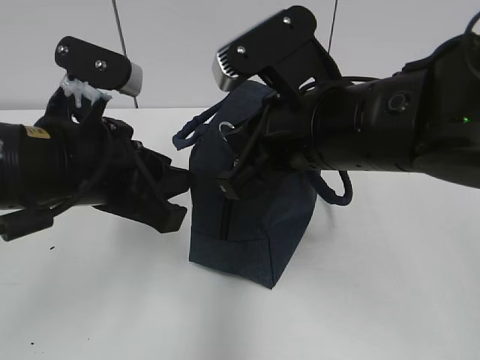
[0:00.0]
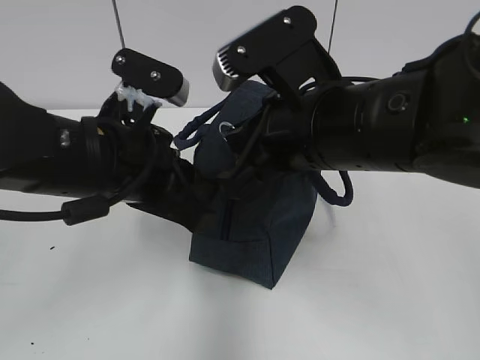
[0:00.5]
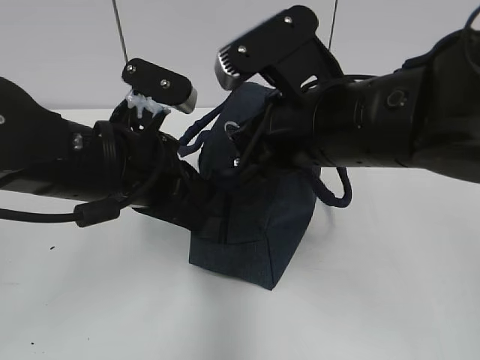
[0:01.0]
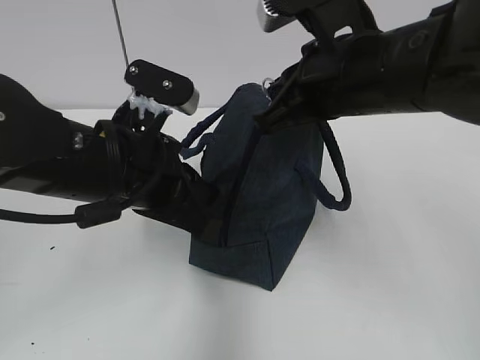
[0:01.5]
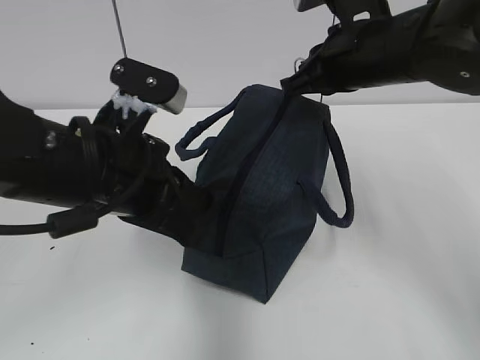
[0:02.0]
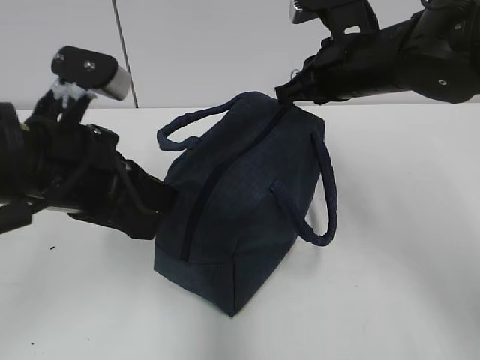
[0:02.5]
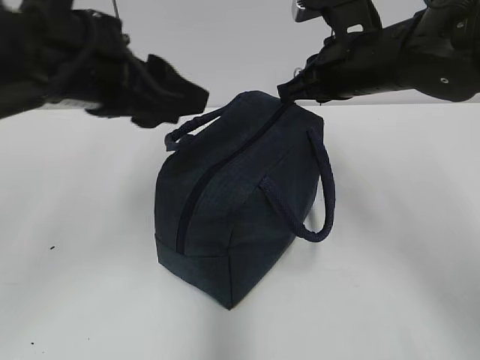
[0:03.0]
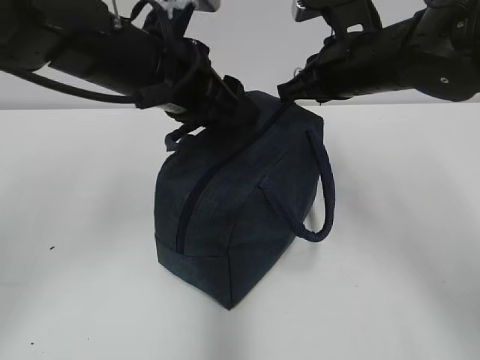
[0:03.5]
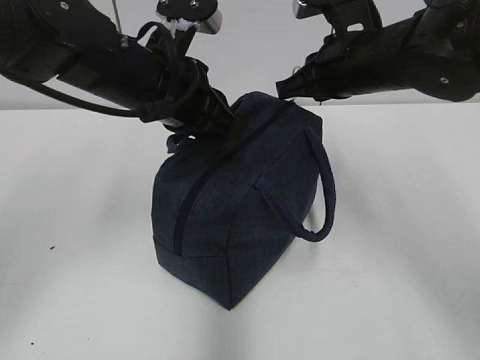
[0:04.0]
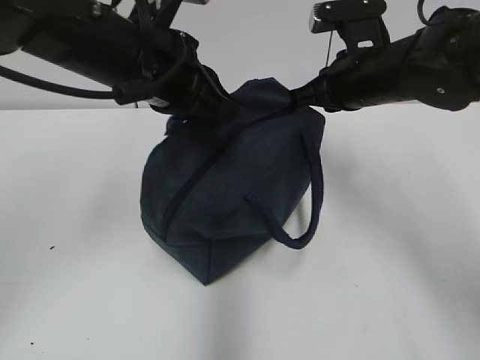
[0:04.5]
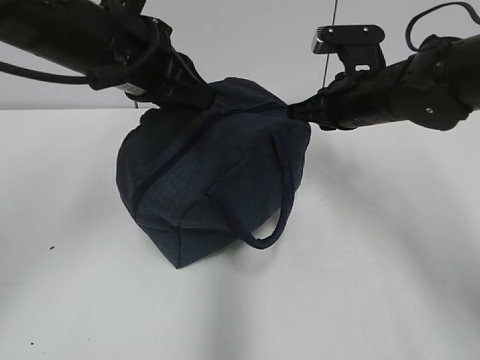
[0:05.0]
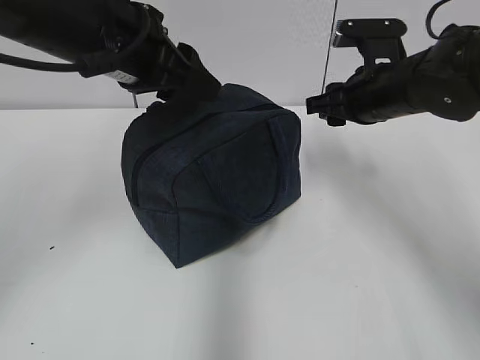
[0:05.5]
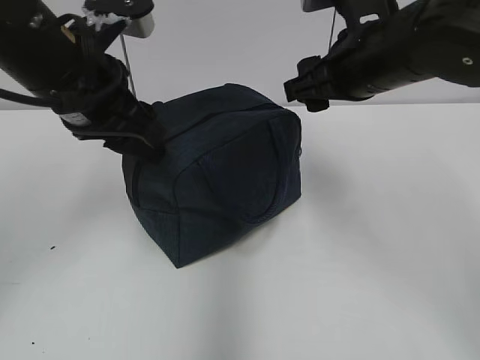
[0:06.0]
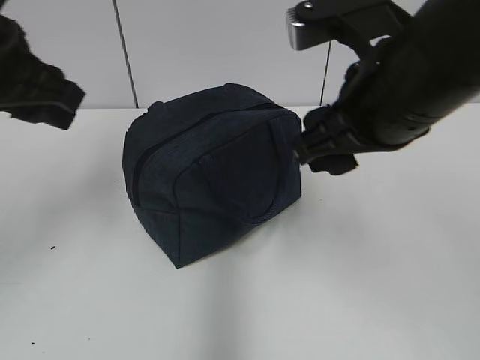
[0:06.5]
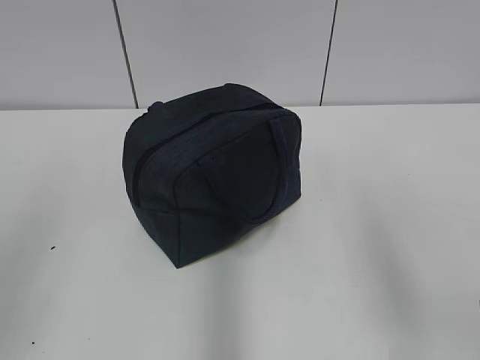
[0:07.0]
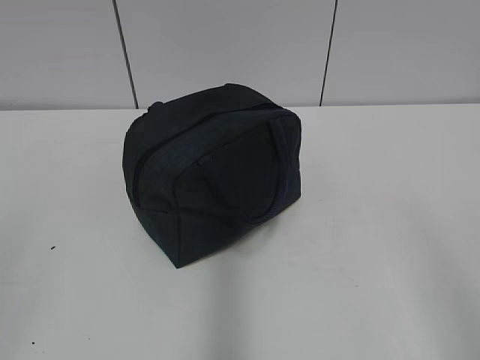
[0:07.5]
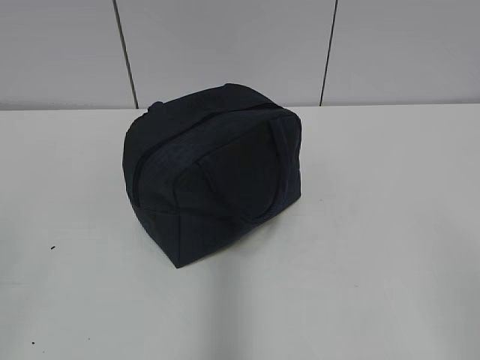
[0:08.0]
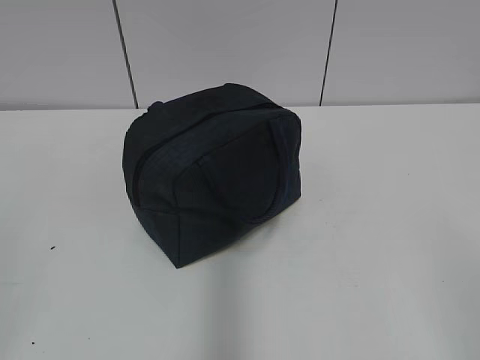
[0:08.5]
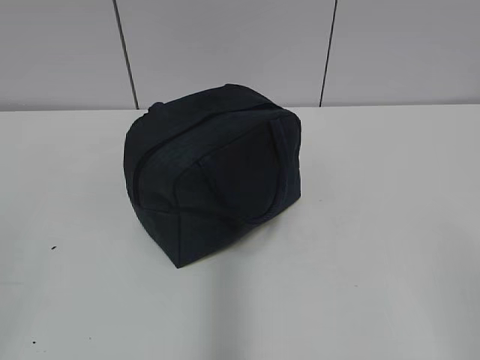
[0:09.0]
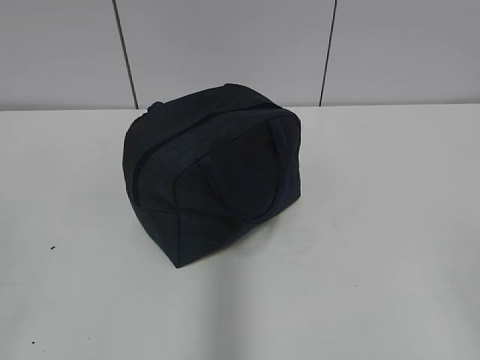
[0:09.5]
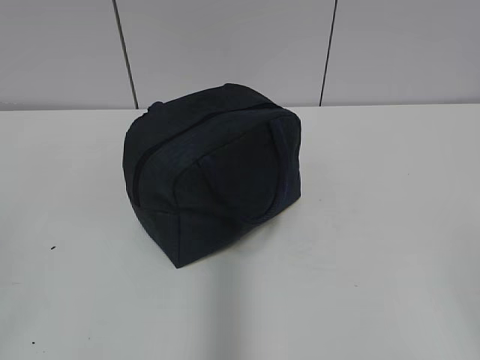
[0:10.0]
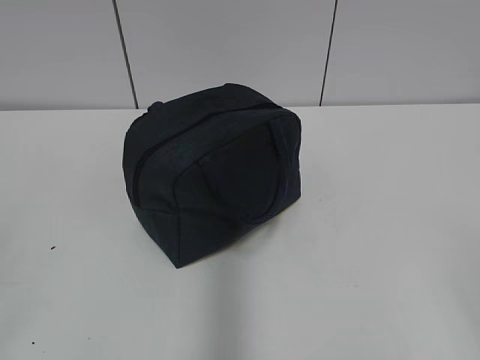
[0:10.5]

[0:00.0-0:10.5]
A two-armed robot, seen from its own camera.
Step, 0:01.0 to 0:04.5: Pull the zipper with your right hand.
0:00.0 to 0:02.0: The right gripper moves forward and to the right, roughly 15 cm. Meanwhile the left gripper closes its fingers.
0:02.0 to 0:04.0: The left gripper moves forward, approximately 10 cm, and opens, then closes once more.
0:04.0 to 0:06.5: The left gripper shifts roughly 15 cm to the left, upward and backward, and opens up; the right gripper heads backward, covering approximately 15 cm, and opens up.
0:06.5 to 0:08.5: The right gripper moves backward and to the right, some 30 cm; the left gripper moves backward, approximately 30 cm.
